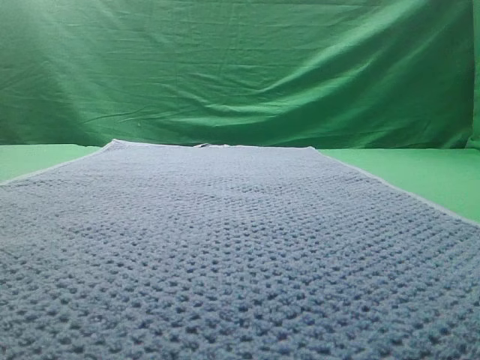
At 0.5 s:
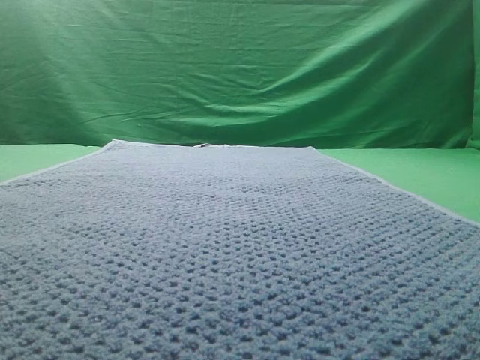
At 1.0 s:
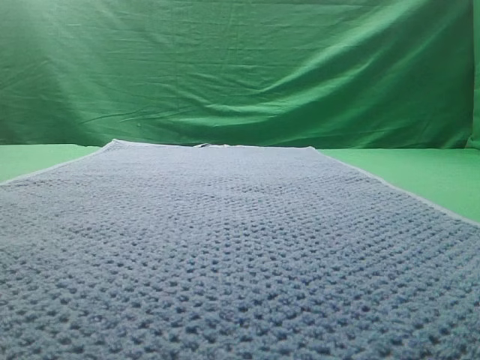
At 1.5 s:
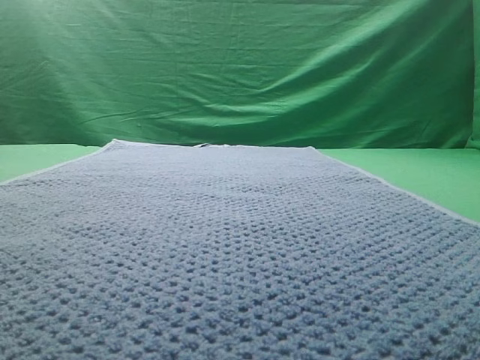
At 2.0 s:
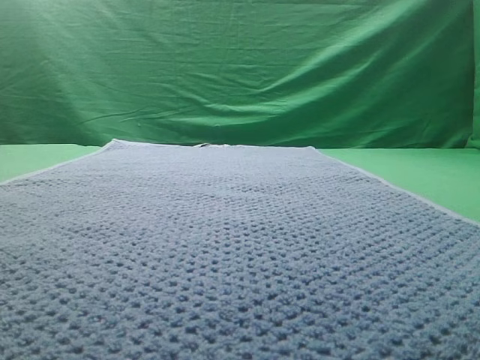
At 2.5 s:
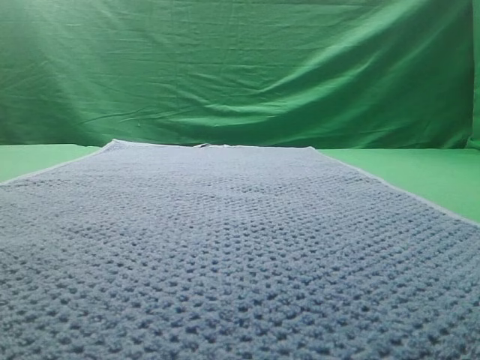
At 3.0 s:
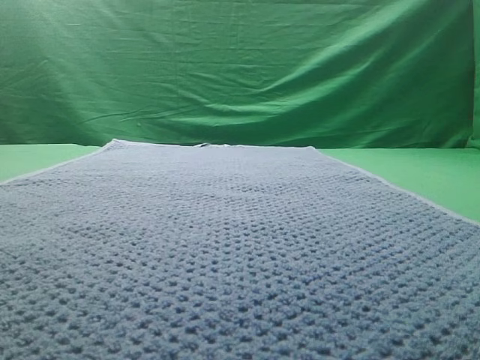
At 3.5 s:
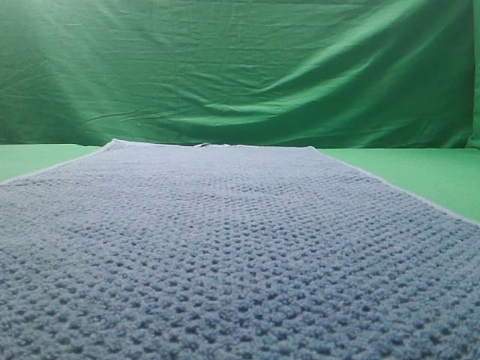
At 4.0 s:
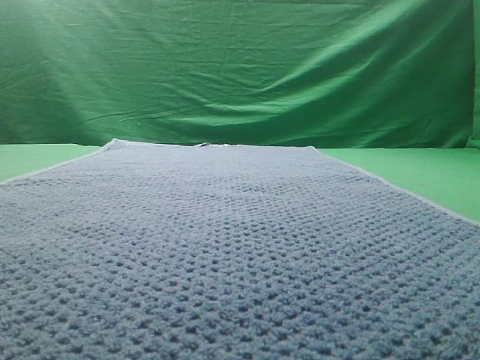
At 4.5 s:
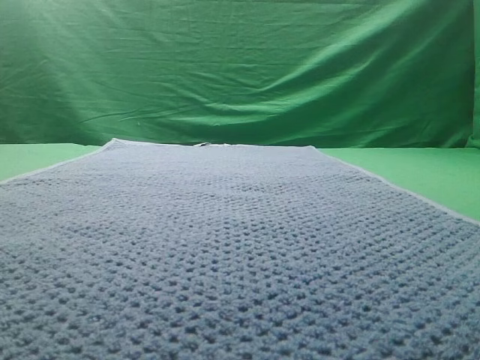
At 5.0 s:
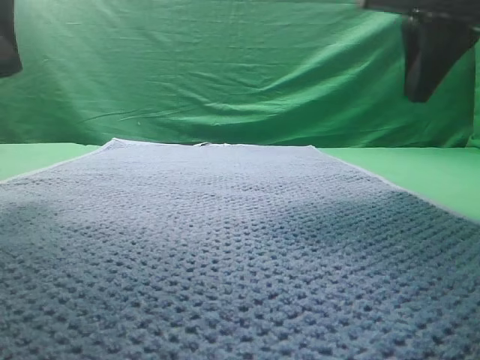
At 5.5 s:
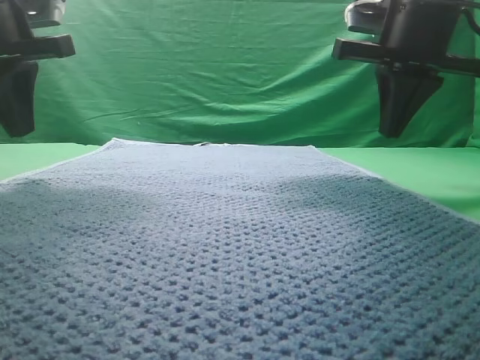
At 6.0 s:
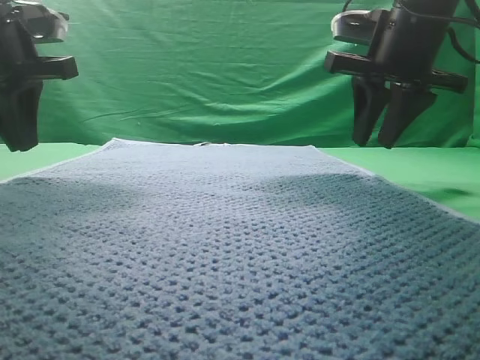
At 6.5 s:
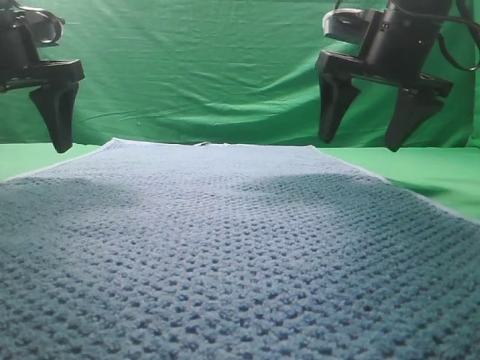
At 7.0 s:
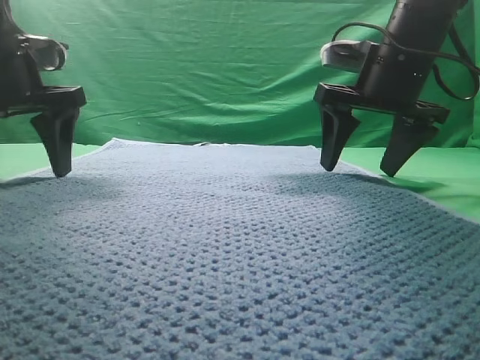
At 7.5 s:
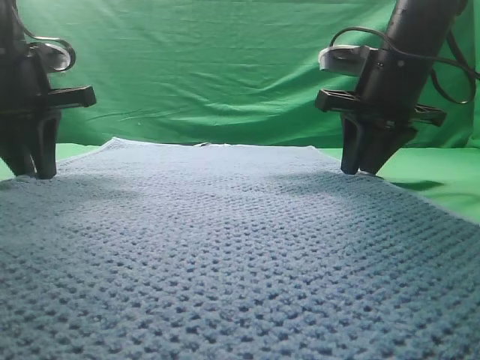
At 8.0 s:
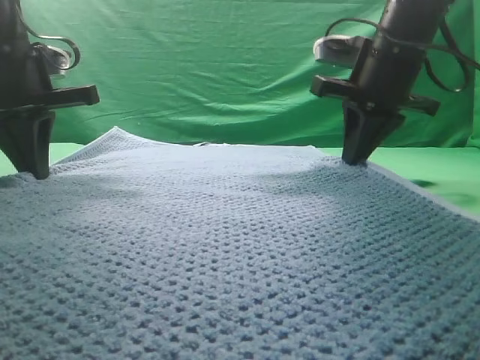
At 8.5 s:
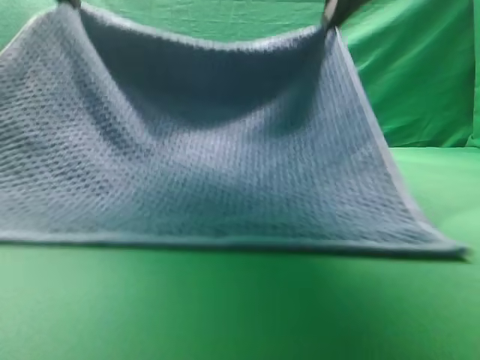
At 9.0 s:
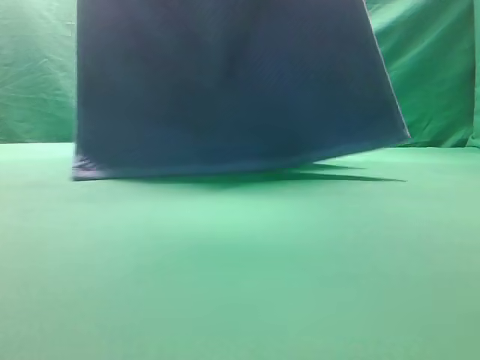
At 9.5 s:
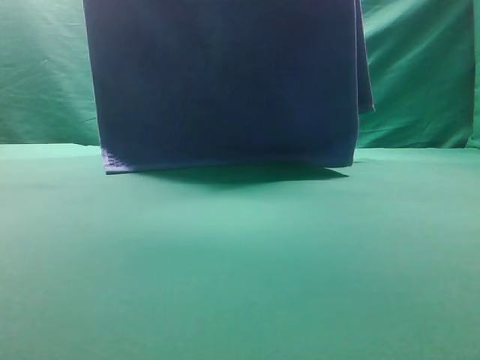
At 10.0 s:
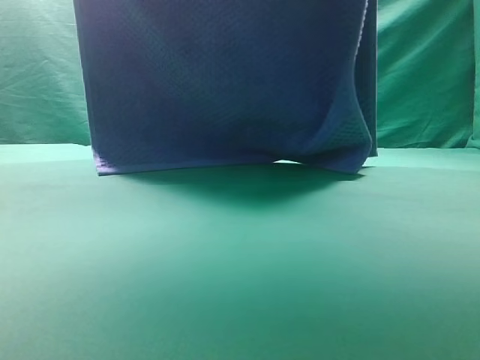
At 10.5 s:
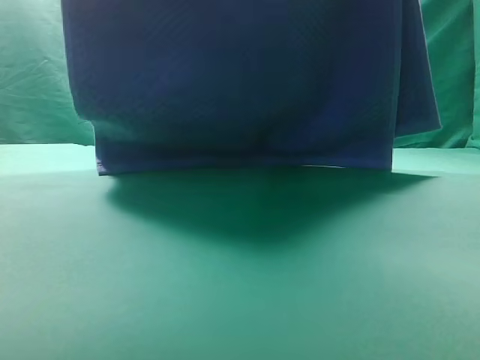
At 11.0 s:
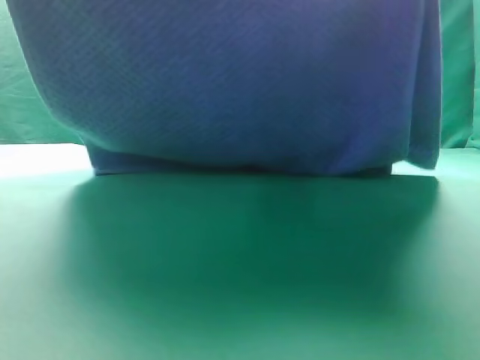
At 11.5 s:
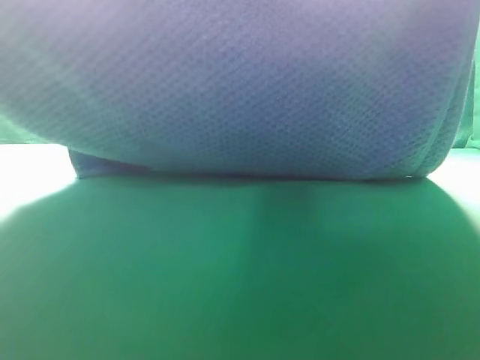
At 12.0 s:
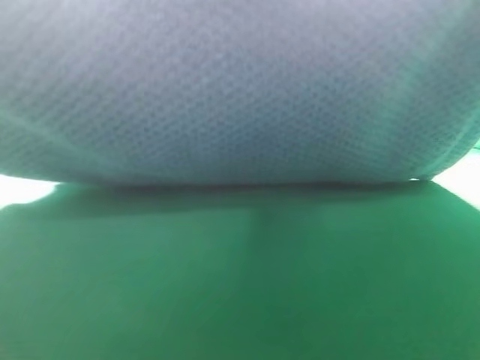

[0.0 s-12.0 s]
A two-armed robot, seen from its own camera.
Task of the whole recording: fold the towel on the table twice.
Step, 0.0 to 9.0 s: pick up the towel with two arm.

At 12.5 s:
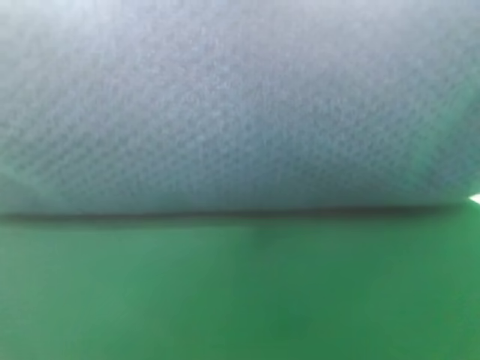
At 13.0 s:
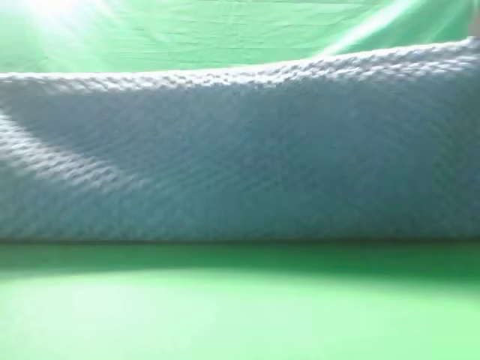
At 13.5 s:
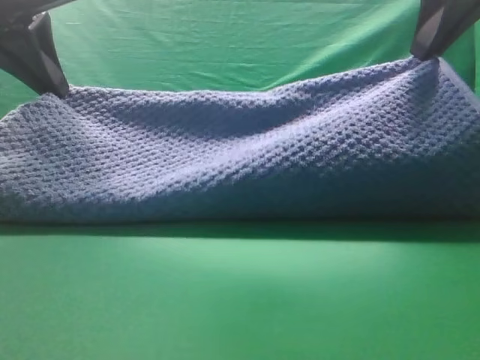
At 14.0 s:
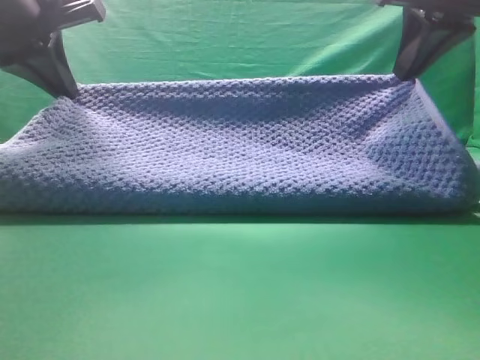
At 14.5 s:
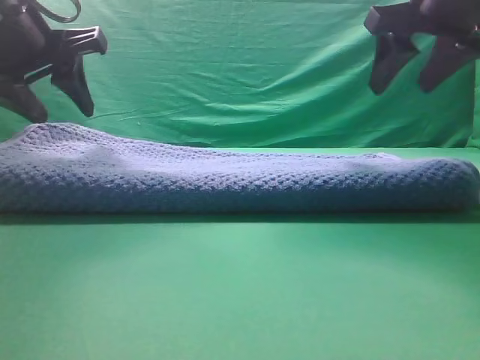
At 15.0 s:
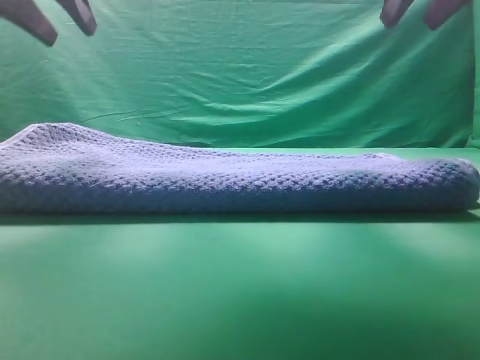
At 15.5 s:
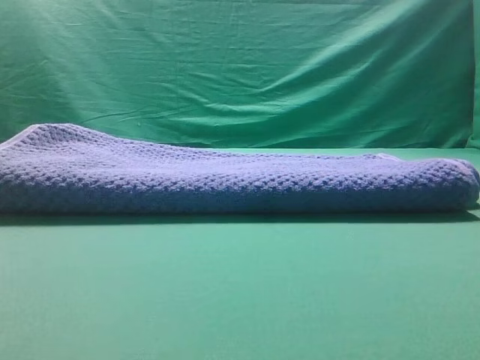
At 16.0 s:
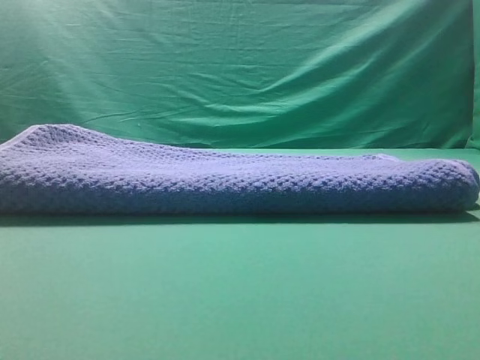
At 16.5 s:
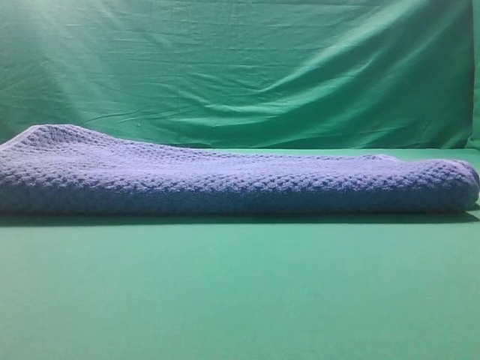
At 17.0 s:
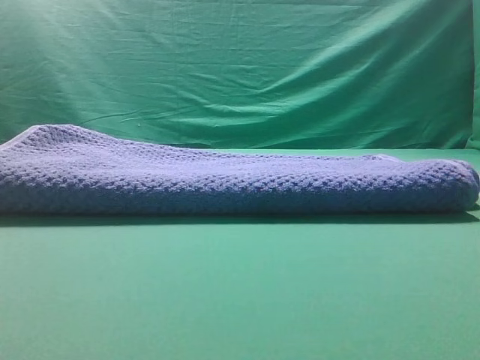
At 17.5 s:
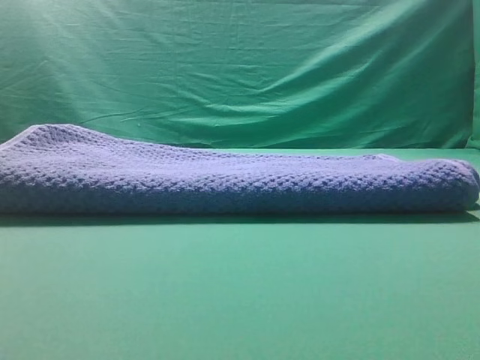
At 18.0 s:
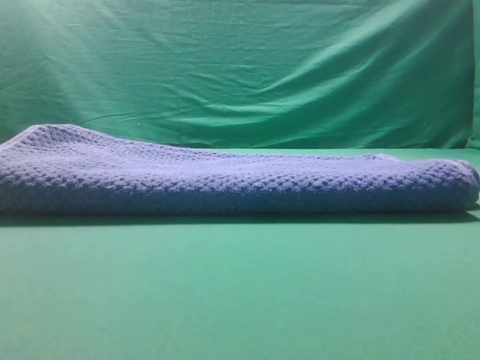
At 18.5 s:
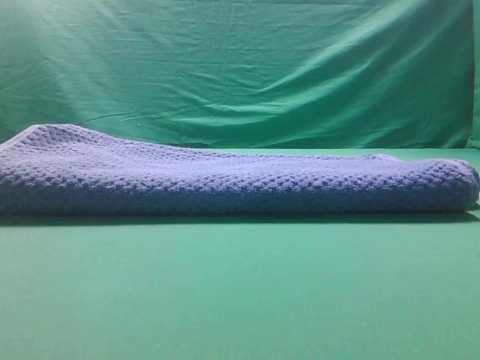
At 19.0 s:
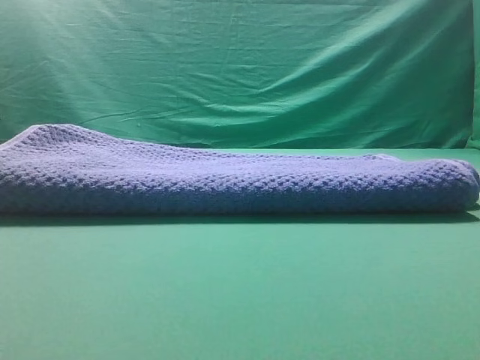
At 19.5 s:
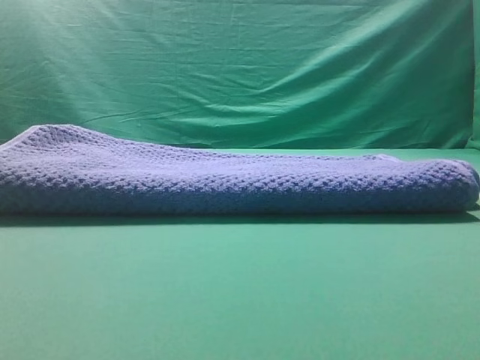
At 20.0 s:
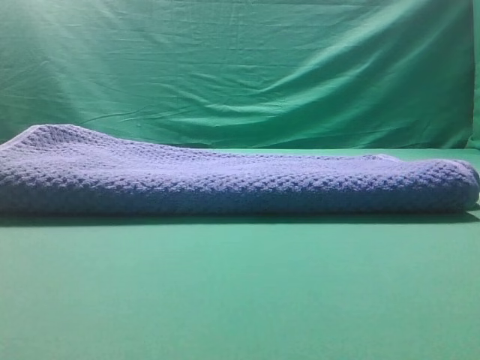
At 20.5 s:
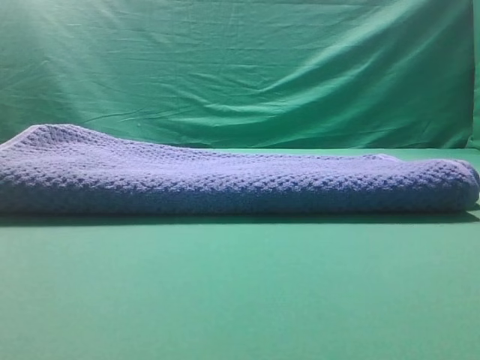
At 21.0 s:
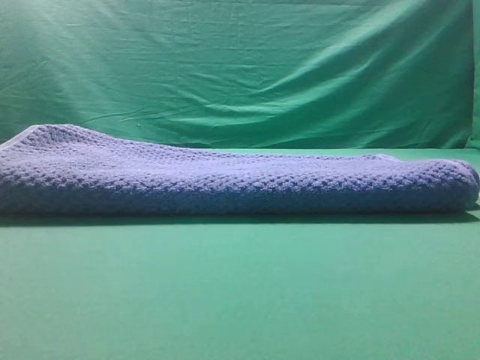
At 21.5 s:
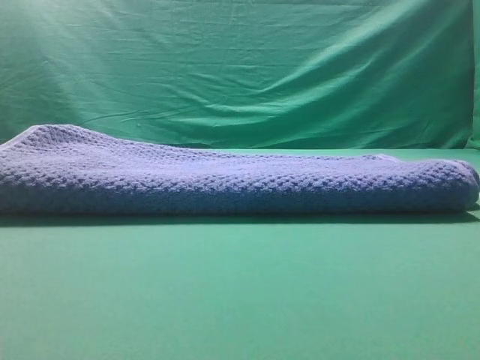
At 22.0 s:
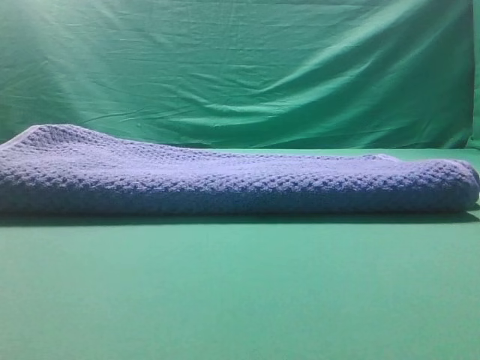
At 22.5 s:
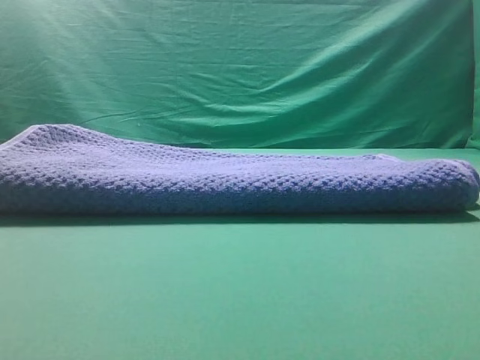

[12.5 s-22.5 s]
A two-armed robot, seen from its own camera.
Task of the whole recording: fold the towel on the table twice.
Step, 12.5 to 14.5 s: Fold the towel twice on the table.

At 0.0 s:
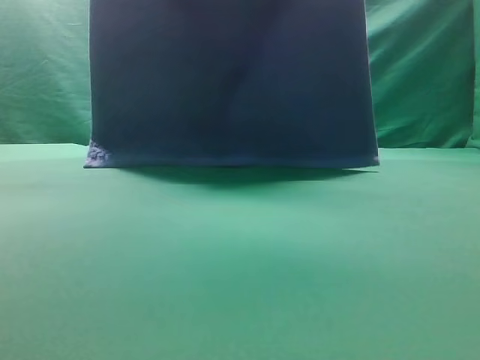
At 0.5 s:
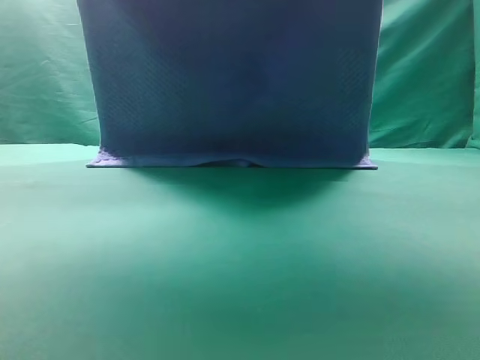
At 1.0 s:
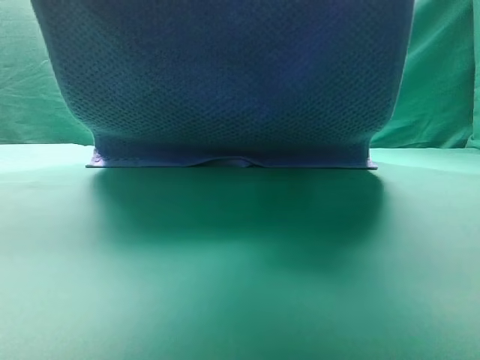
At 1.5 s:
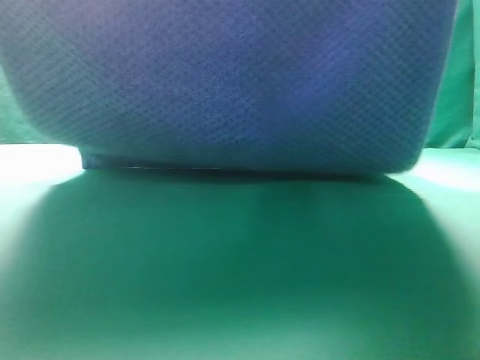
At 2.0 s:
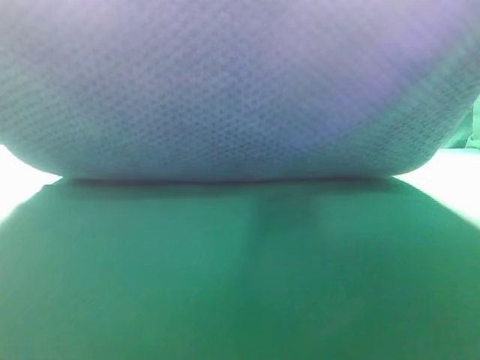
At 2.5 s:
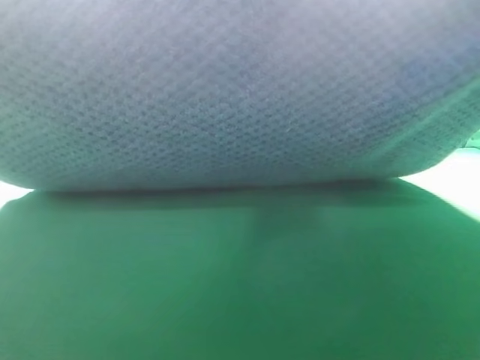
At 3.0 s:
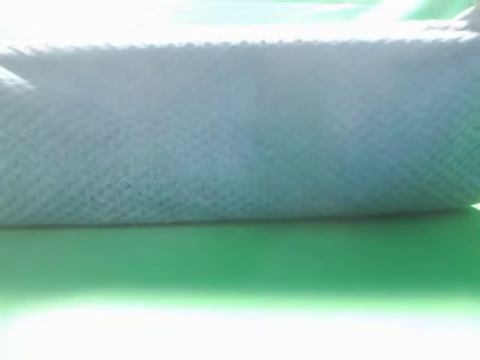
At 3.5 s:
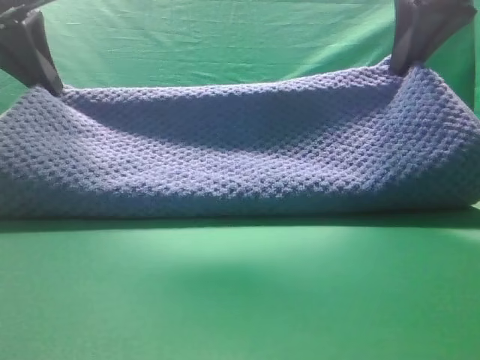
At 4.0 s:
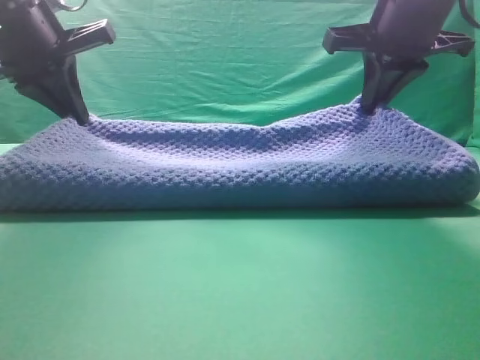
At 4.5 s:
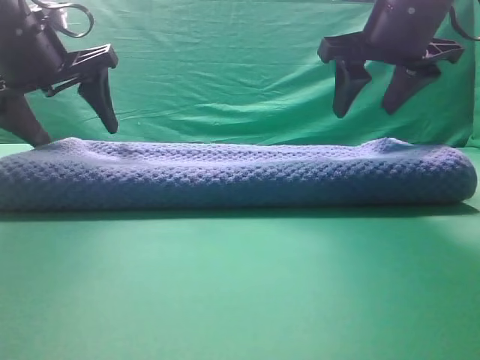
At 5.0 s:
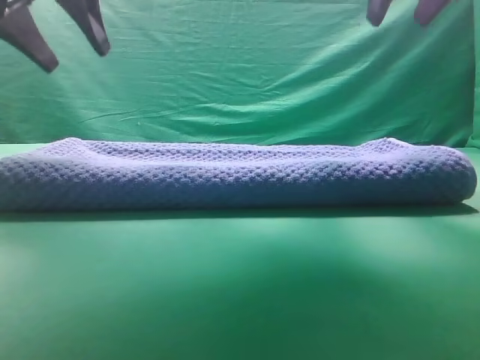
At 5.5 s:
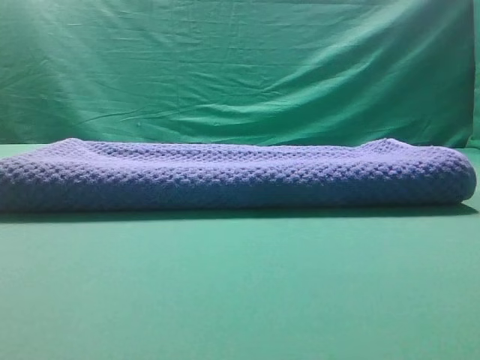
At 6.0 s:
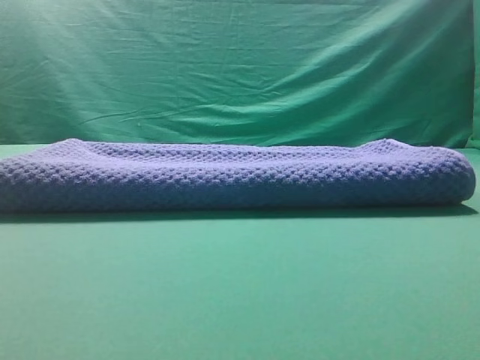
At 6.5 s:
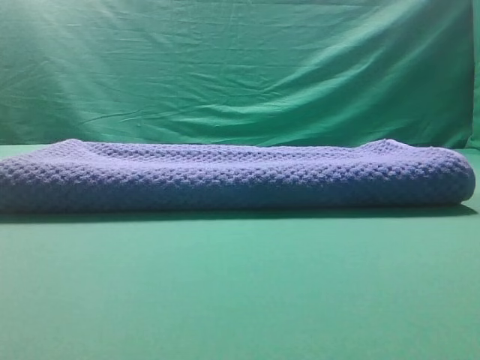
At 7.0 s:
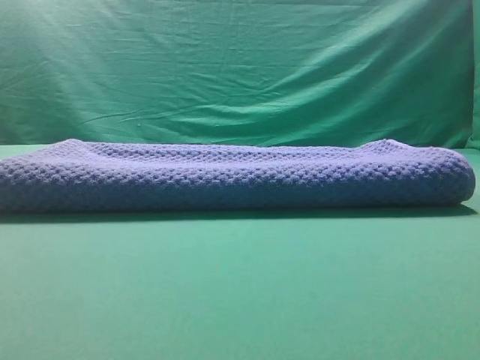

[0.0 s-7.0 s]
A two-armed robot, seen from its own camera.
Task of the whole recording: fold the towel on the table twice.
Step, 0.0 to 4.5 s: Fold the towel twice on the table.
